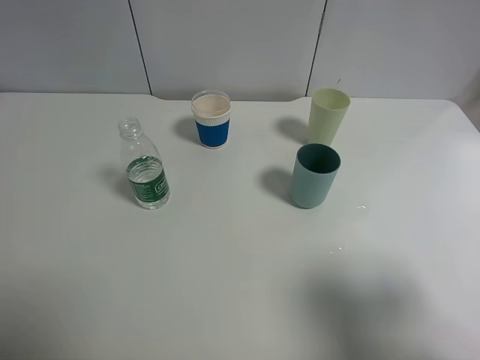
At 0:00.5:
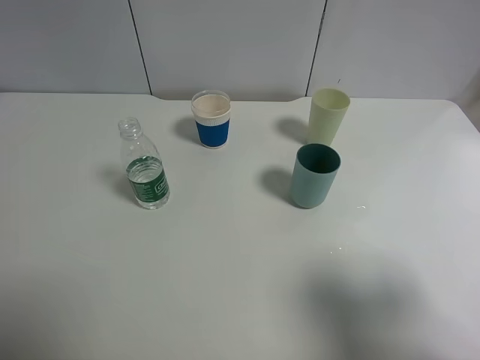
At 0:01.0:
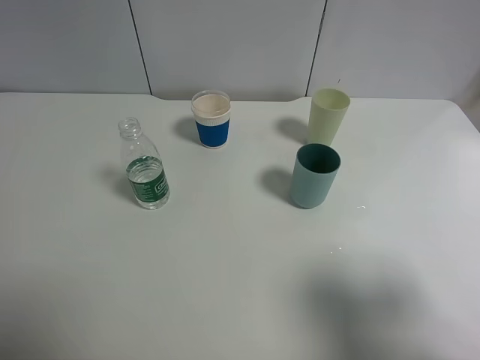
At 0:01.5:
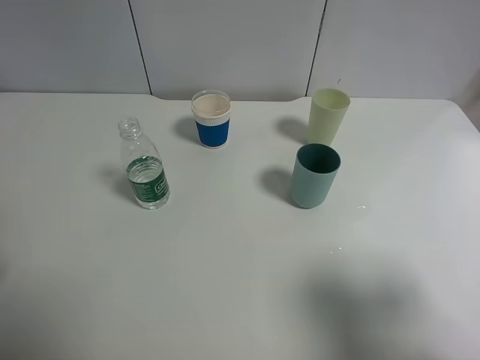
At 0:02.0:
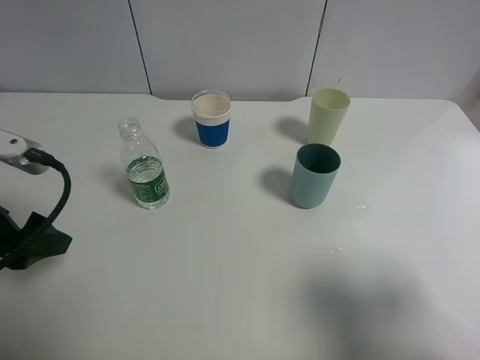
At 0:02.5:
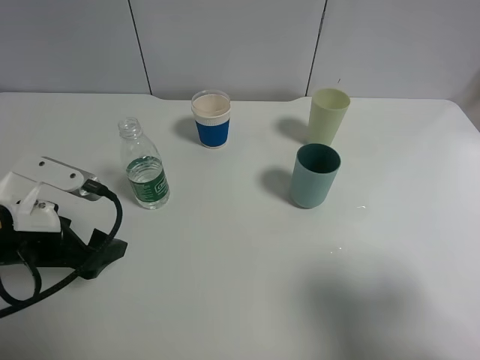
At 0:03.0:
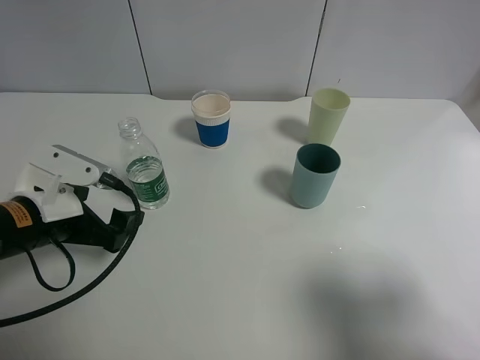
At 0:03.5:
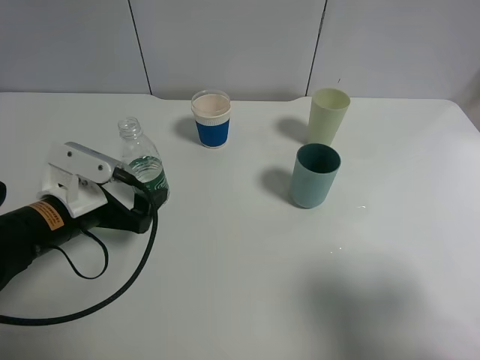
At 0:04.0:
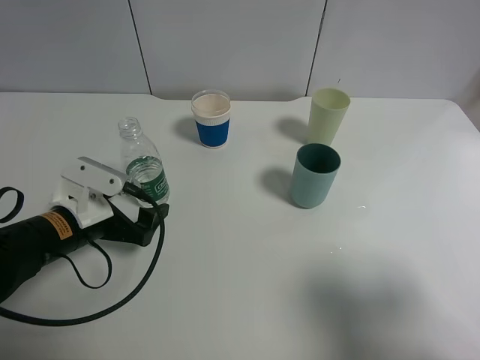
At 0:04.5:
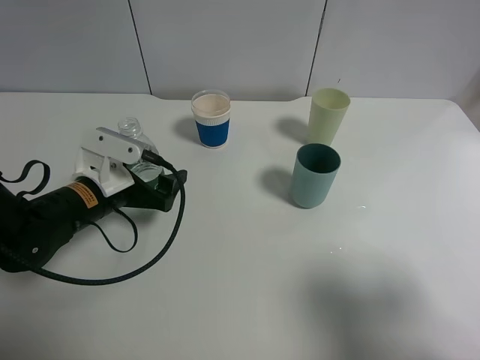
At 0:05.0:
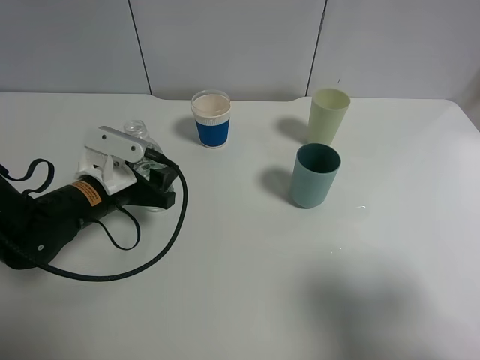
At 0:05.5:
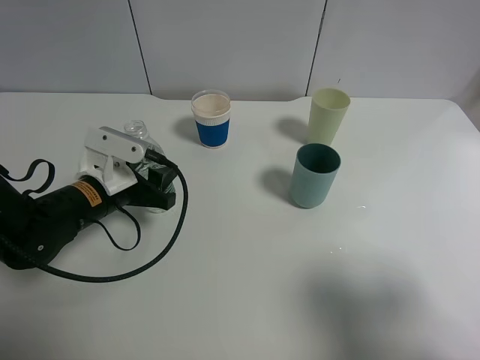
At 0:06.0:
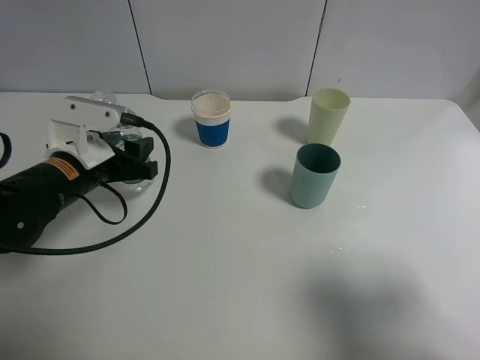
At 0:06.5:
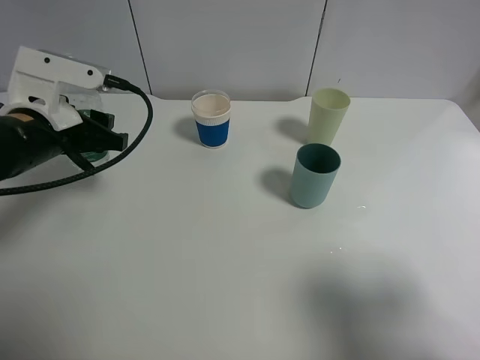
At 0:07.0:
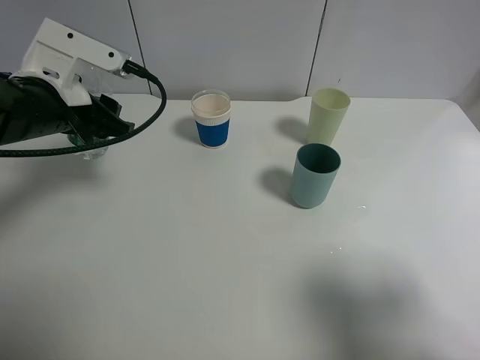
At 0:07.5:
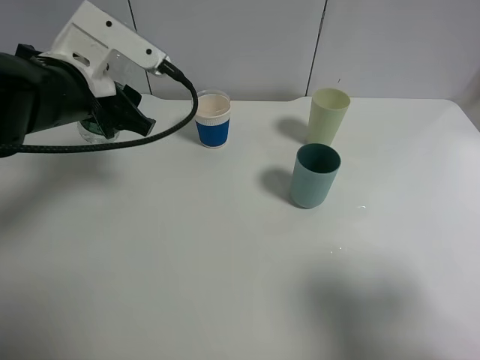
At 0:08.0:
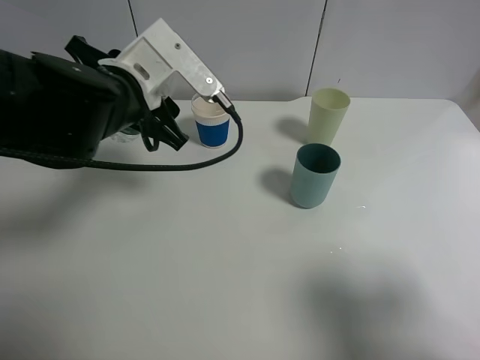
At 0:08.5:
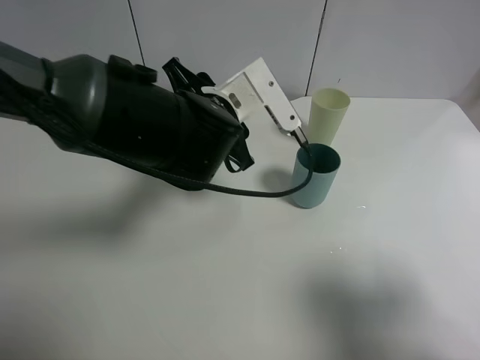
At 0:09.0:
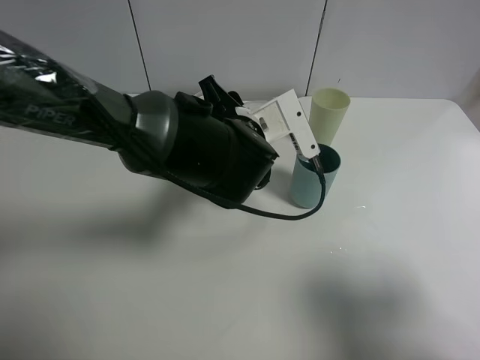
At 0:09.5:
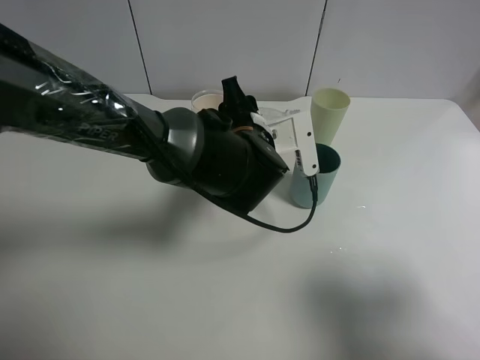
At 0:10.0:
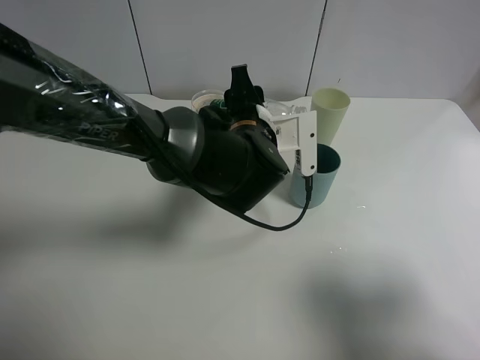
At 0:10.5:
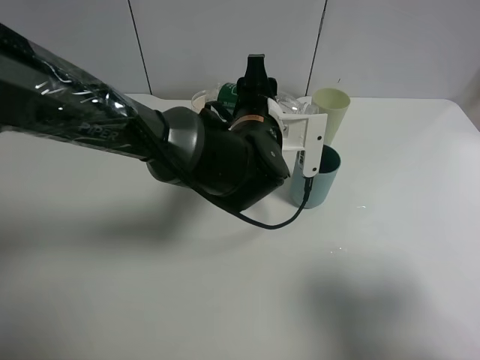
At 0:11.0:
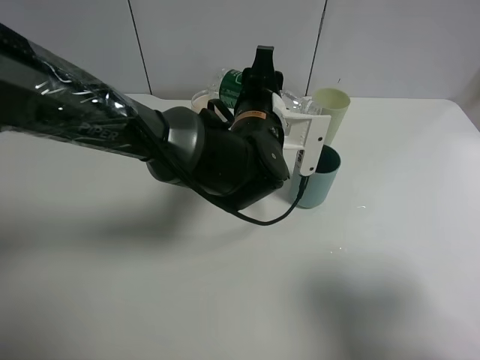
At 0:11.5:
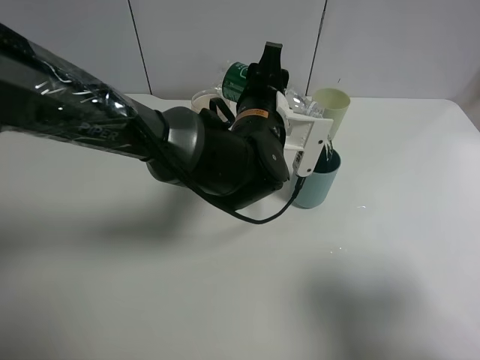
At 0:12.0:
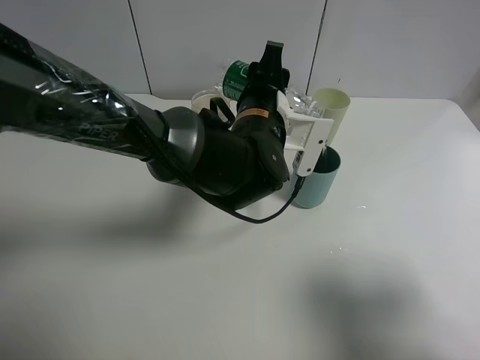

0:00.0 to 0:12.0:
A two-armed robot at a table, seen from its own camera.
Task of the whole recording: use a clamp to hold the bottle of the drink, pour the beverage into a random cup, then clamp the cup containing the drink and pour the drink into another random cup.
Step, 0:00.0 to 0:06.0: Pick up the water bottle with left gripper.
0:00.0 to 0:02.0: The left gripper travels forward and downward by approximately 15 cm.
0:02.0 to 0:04.0: The left gripper heads downward and to the right, covering about 15 cm.
0:04.0 to 0:06.0: The left gripper changes place by roughly 5 cm, and closes up.
0:06.0 to 0:08.0: The left gripper shifts some 10 cm upward and to the right.
0:08.0 to 0:10.0: The left gripper moves to the right and downward, about 15 cm.

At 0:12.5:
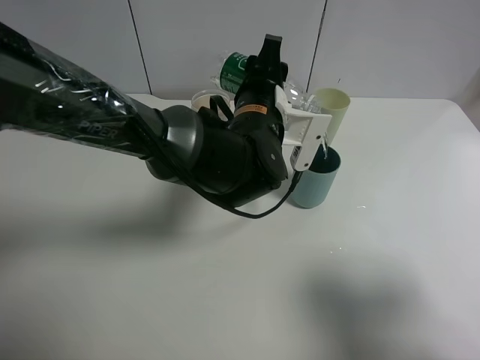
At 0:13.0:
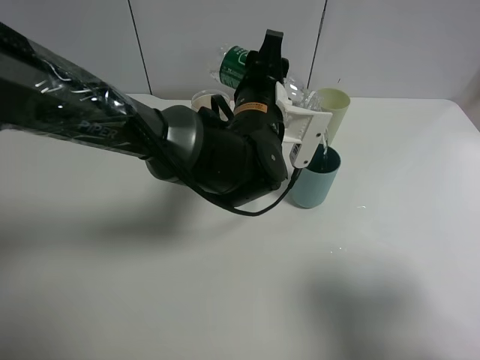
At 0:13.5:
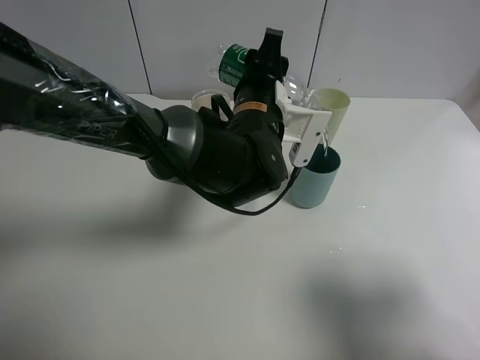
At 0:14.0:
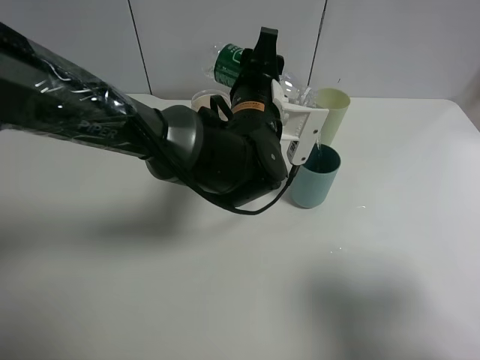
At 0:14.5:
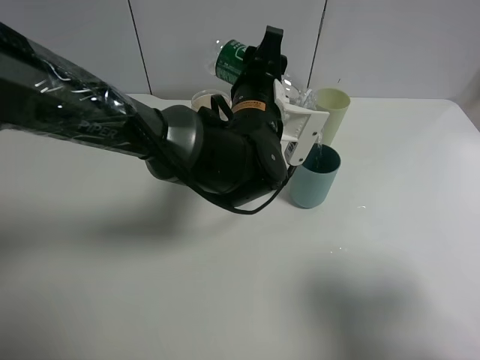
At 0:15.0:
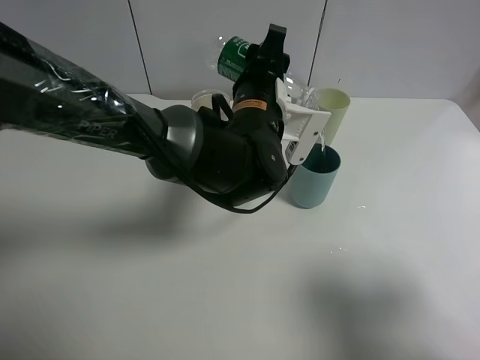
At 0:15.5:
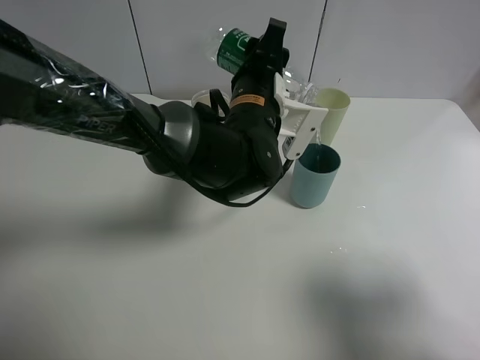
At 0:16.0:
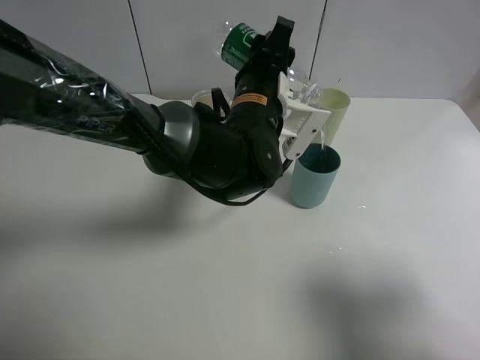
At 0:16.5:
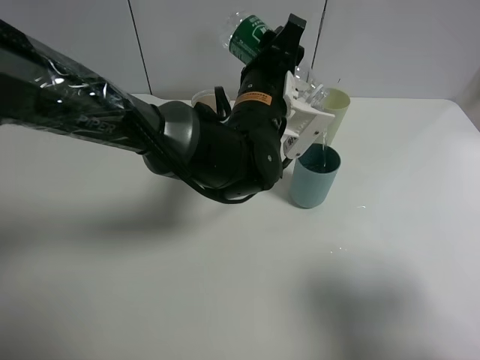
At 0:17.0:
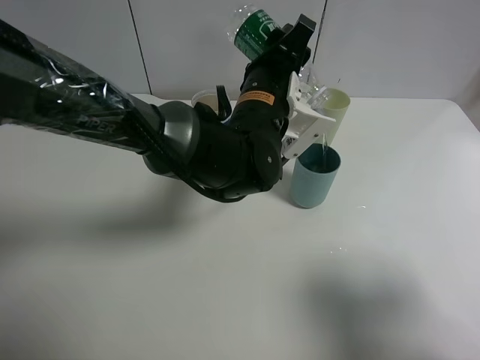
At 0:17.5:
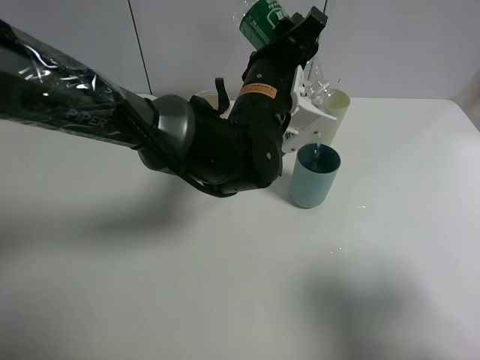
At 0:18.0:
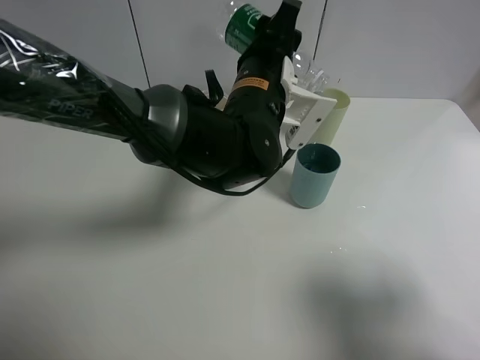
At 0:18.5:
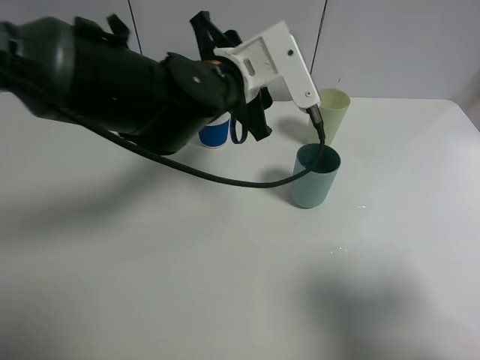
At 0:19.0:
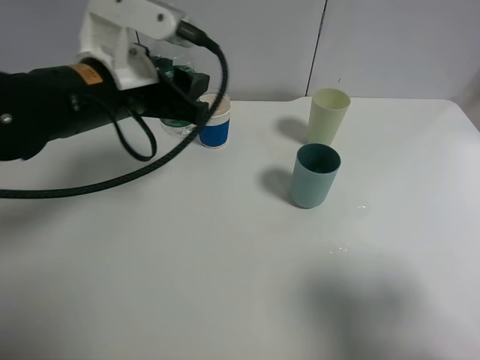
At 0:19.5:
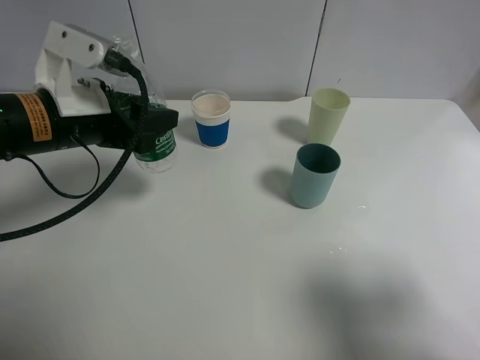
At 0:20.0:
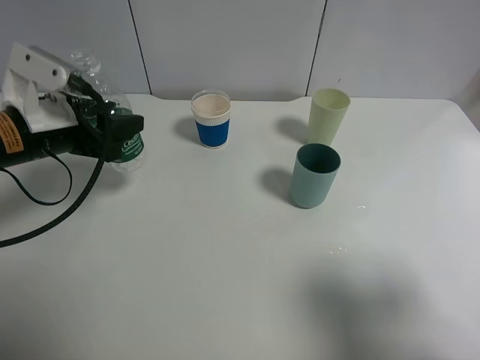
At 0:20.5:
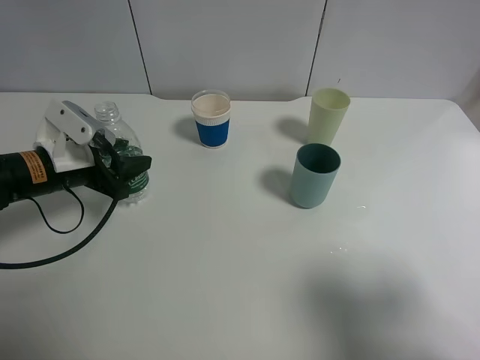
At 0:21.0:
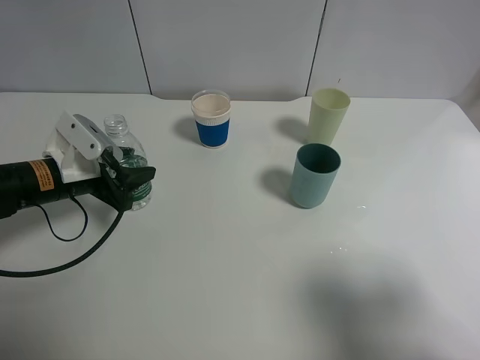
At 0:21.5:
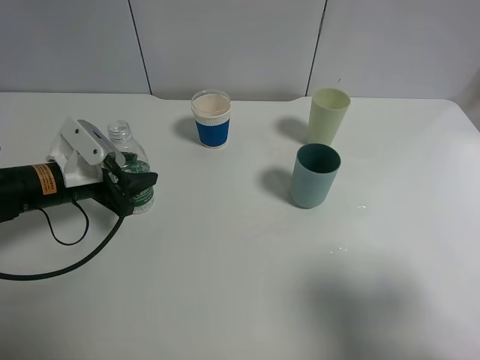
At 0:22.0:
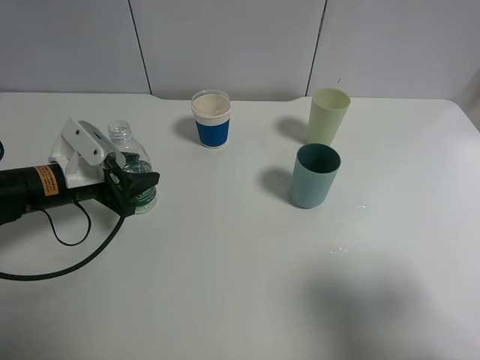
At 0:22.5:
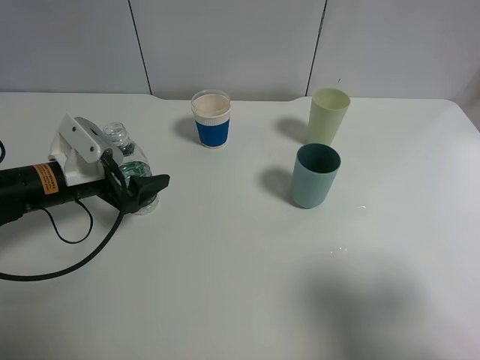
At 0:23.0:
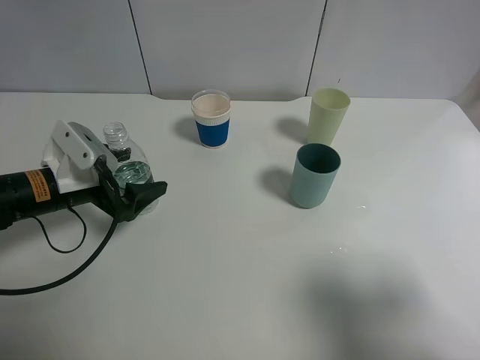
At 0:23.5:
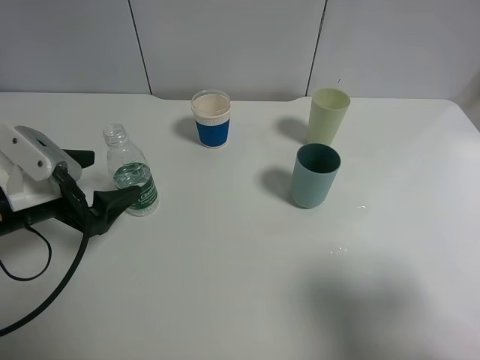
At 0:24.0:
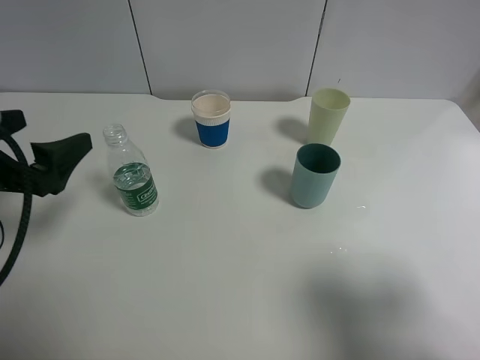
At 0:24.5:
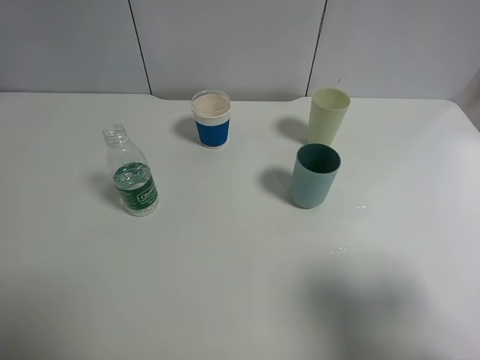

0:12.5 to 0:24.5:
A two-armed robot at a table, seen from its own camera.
Task of the whole recording: use a clamp to hold the bottle of the drink, pour the beverage into a random cup, then clamp the cup containing the drink and pour the drink into another random cup.
Step, 0:12.5 to 0:18.0: Pour the water into the blue plastic cup with left gripper.
Step, 0:18.5 to 0:22.0: Place the water bottle on the table with left gripper.
0:12.5 to 0:16.5: The grippers make only small movements.
0:18.5 to 0:20.5: The left gripper is displaced to the left by some 25 cm.
0:20.5 to 0:22.5: The left gripper opens up.
0:22.5 to 0:24.5: The left gripper heads upward and backward, covering some 25 cm.

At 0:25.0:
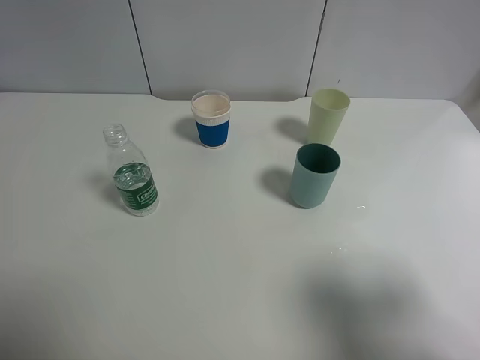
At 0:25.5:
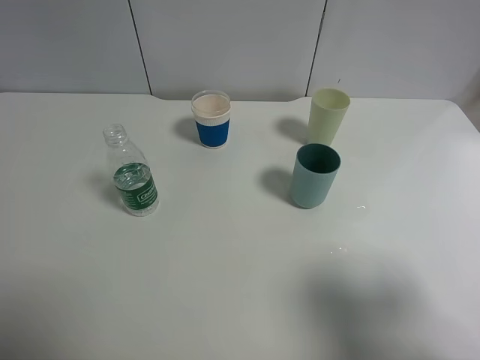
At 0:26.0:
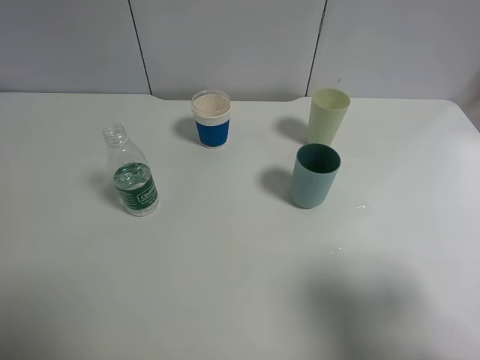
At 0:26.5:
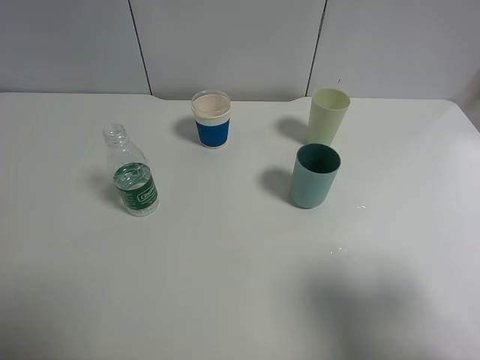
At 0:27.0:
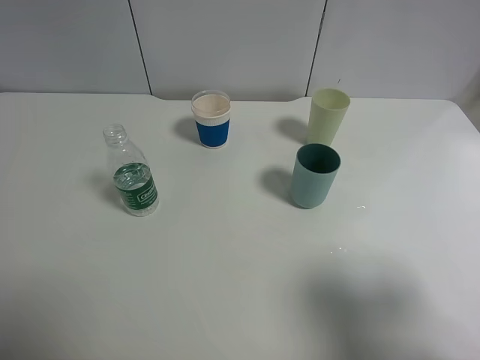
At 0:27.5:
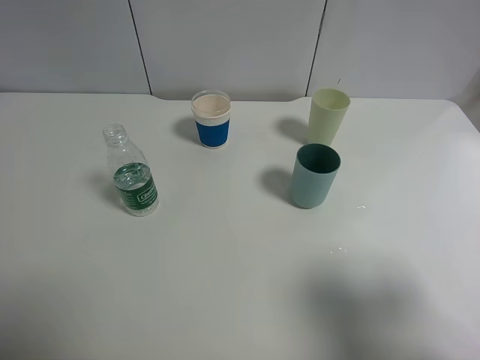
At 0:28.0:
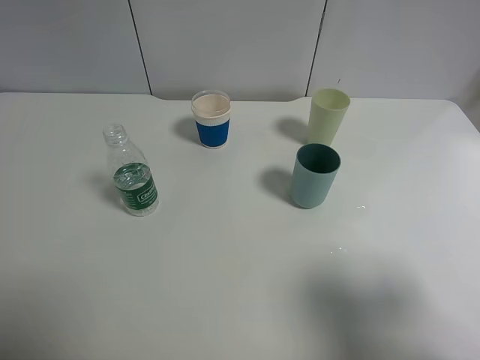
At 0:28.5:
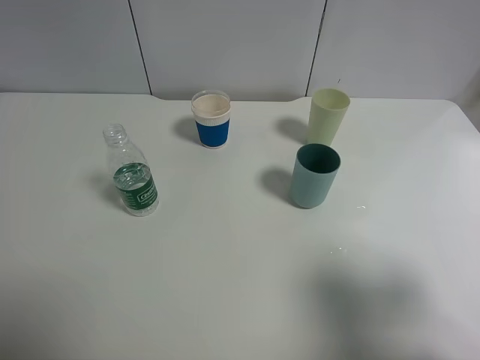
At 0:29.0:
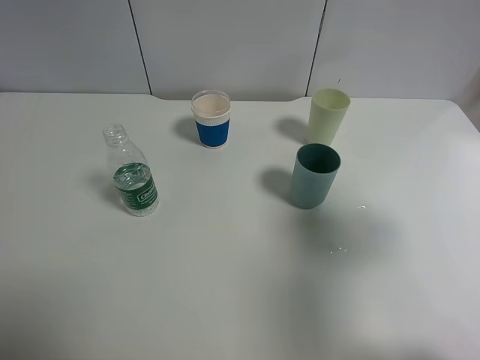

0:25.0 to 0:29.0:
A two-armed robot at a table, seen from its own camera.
Task of the whole recording: use a clamp to hold the bottle of the drink, pour the beverage into a random cup, then clamp the cup containing the drink and pour the drink into another random cup.
0:27.0 to 0:29.0: The right gripper heads forward, covering approximately 10 cm.
